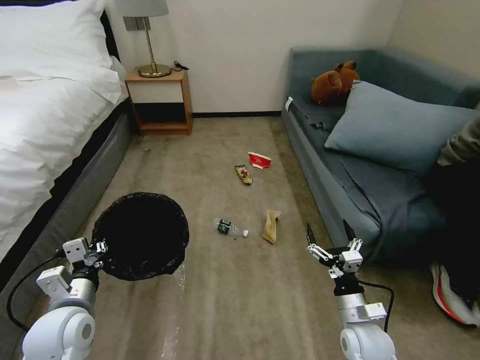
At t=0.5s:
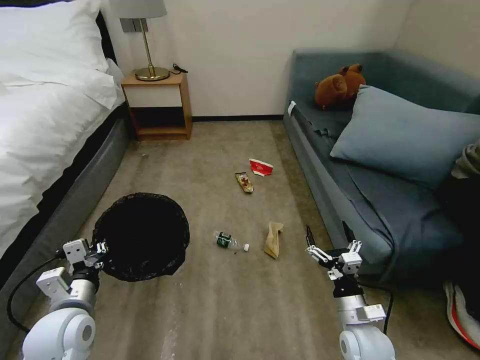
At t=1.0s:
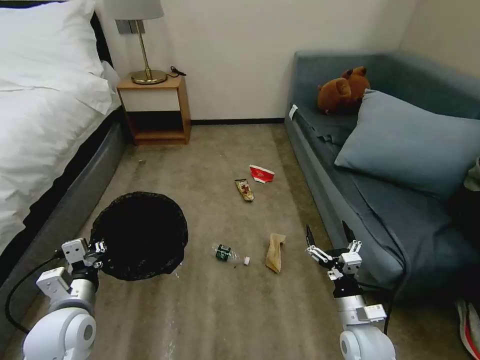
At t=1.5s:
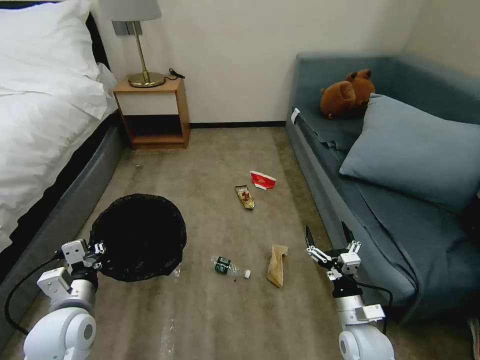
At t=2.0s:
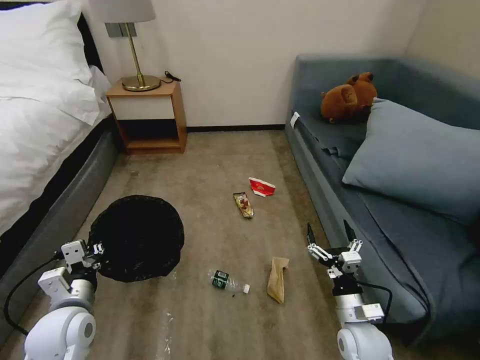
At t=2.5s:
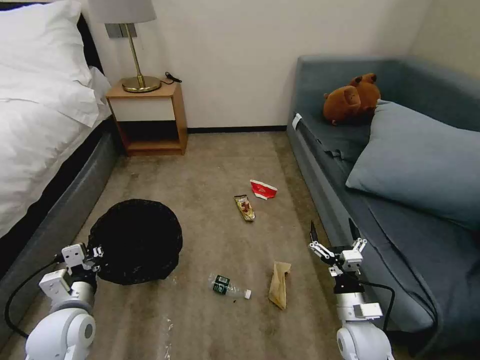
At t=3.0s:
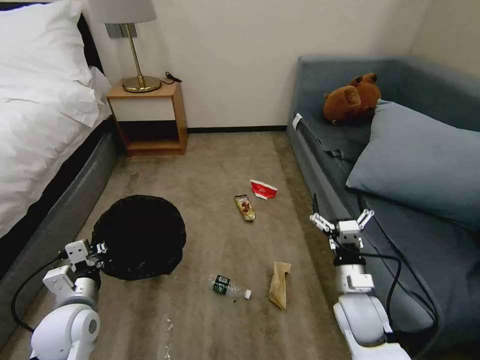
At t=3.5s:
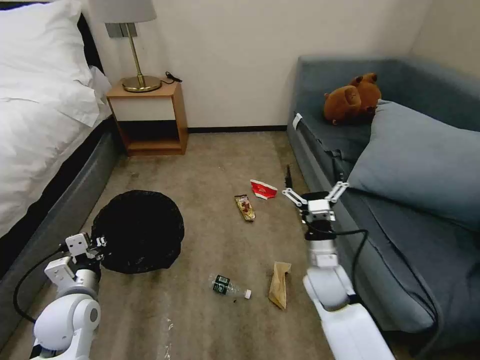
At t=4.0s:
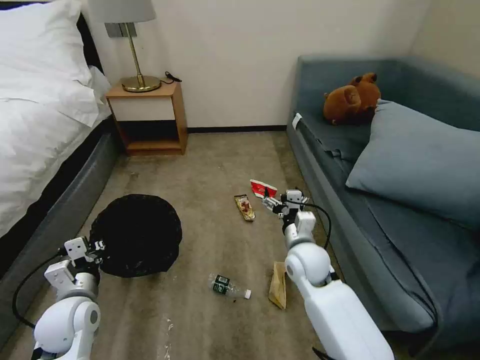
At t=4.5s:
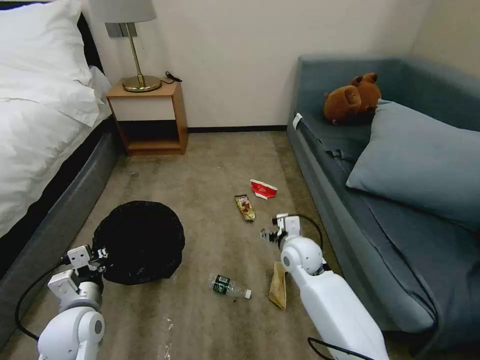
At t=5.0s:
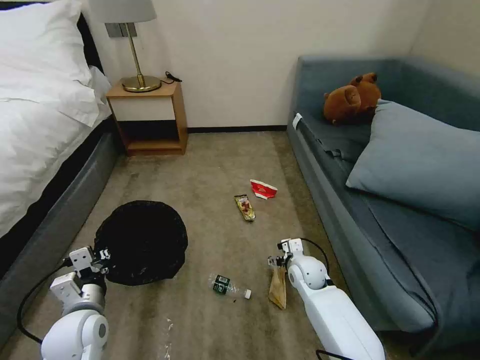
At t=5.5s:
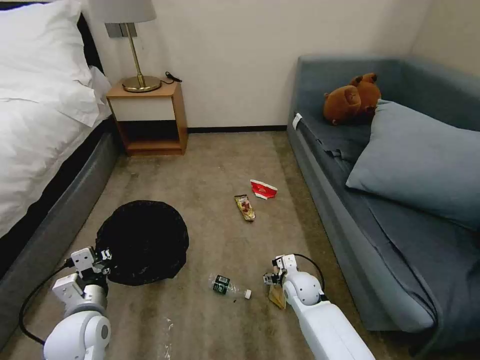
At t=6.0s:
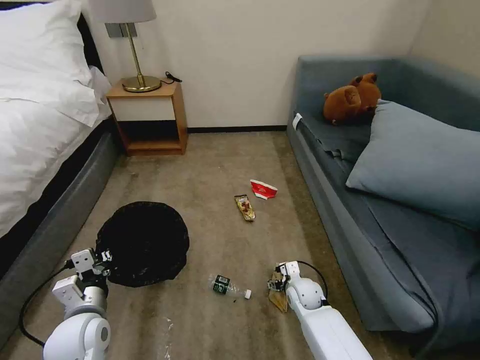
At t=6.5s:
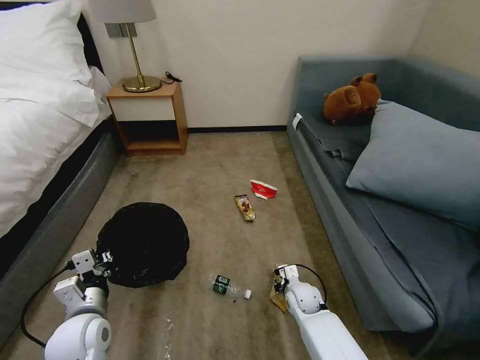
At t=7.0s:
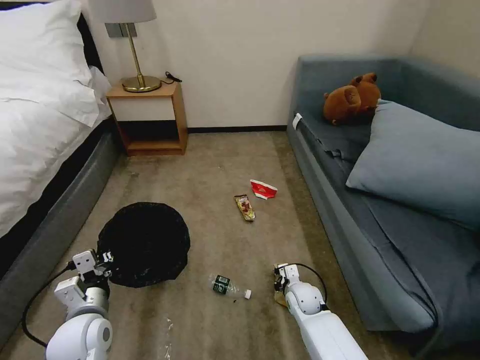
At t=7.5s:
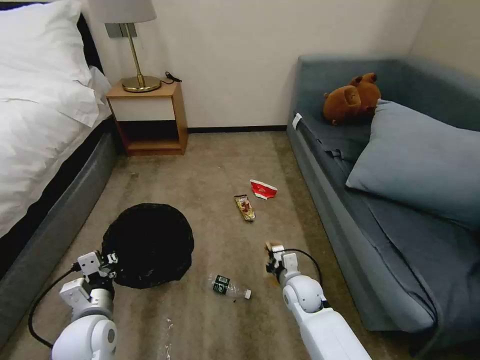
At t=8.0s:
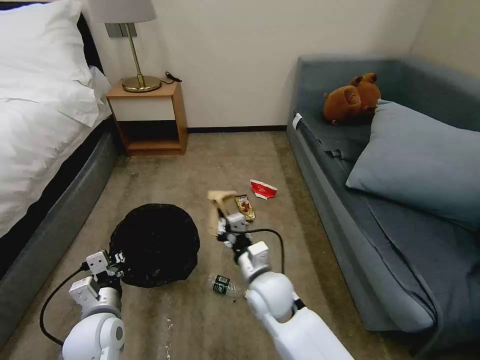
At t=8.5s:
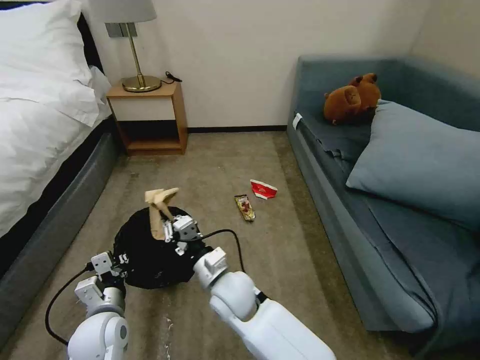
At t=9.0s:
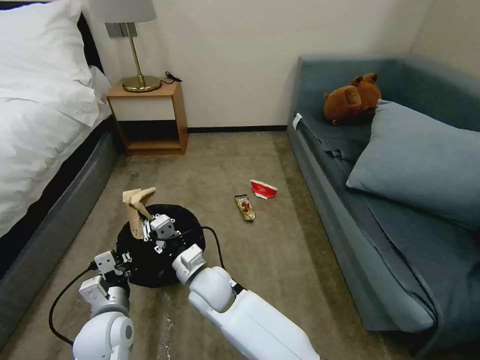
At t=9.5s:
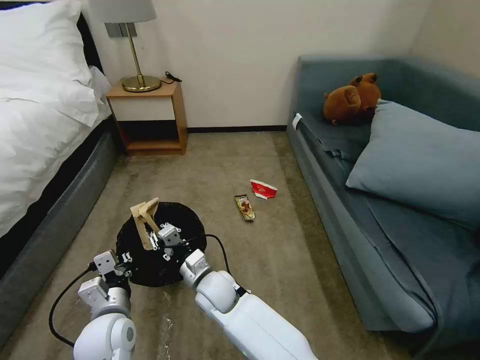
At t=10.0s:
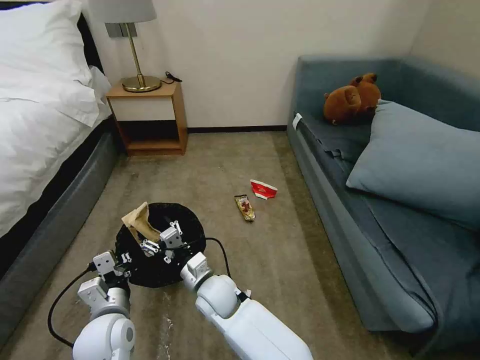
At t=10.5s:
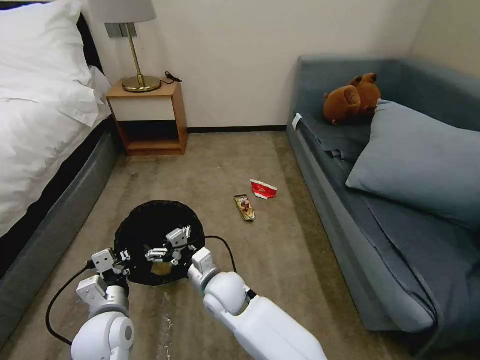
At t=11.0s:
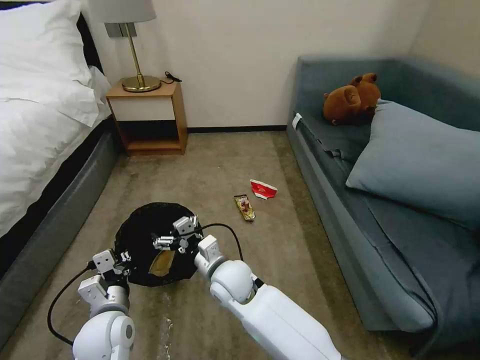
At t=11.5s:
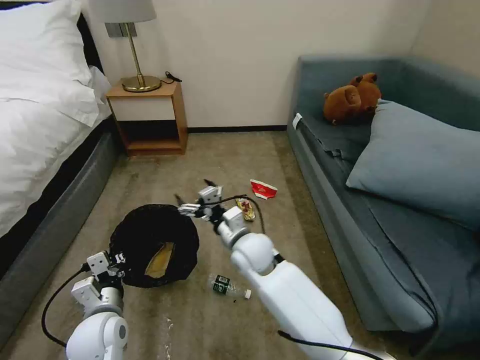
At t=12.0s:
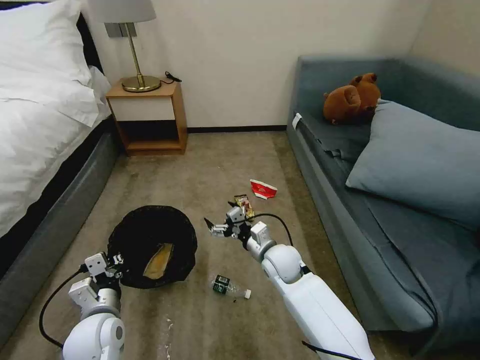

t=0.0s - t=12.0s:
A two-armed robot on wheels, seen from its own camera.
Task of the whole recording: Pick up the trash bin, then pick up the garbage on the floor and place it into the trash bin.
t=2.0s - t=4.0s: The right gripper goes some 20 cm forward, to the left and upward.
t=4.0s - t=6.0s: The right gripper is displaced downward by some 20 cm.
t=6.0s - t=8.0s: The right gripper heads upward and to the left, covering approximately 20 cm, and closes.
t=8.0s - t=10.0s: The right gripper moves to the left, about 15 cm, and opens its fingers.
t=10.0s - t=12.0s: The right gripper heads to the right and forward, covering some 20 cm.

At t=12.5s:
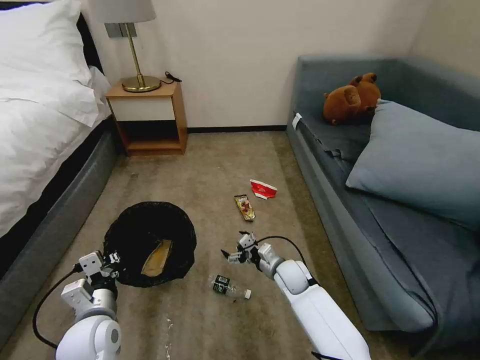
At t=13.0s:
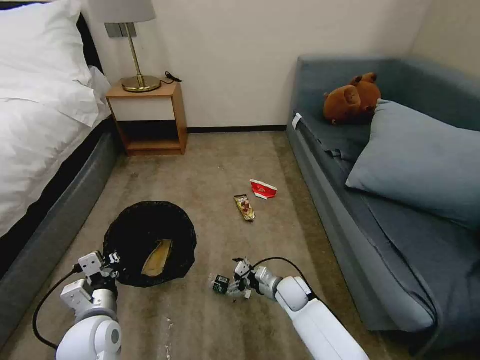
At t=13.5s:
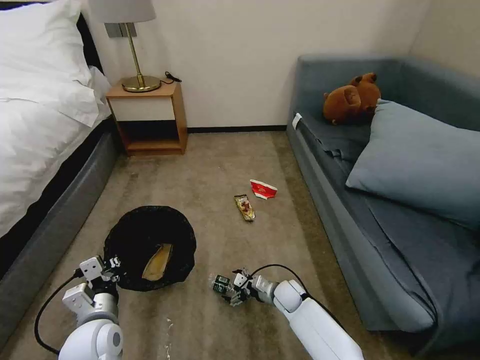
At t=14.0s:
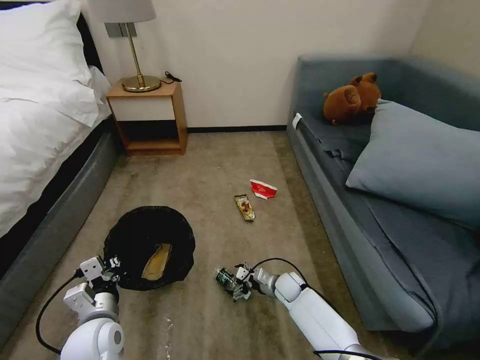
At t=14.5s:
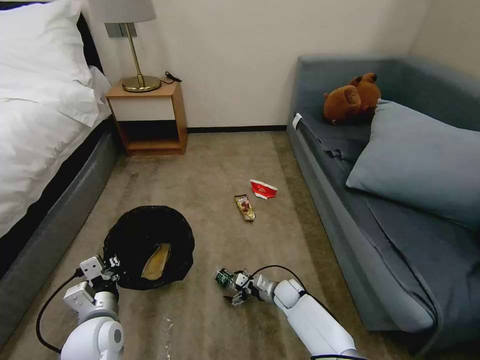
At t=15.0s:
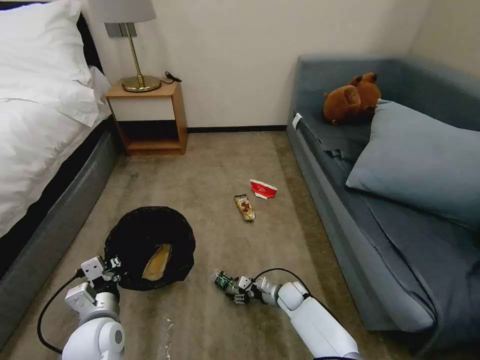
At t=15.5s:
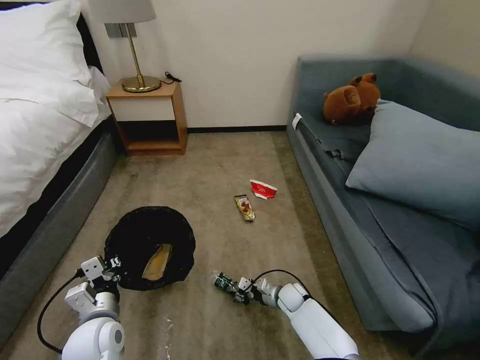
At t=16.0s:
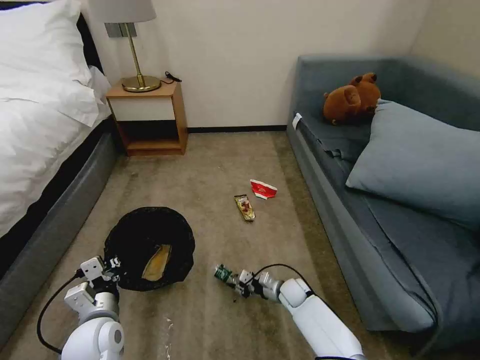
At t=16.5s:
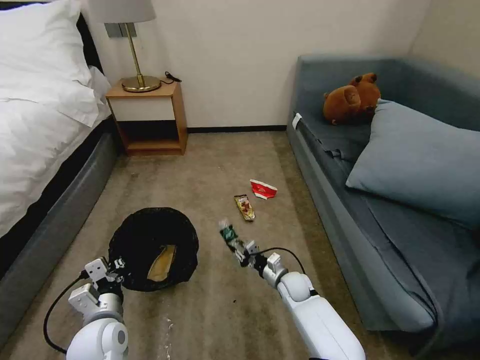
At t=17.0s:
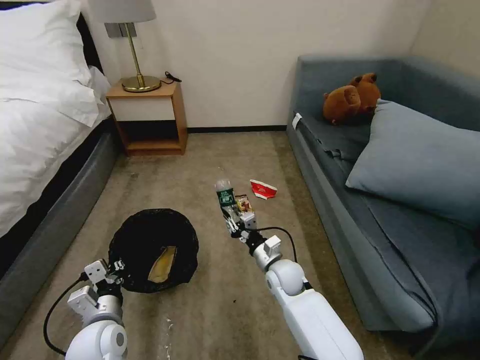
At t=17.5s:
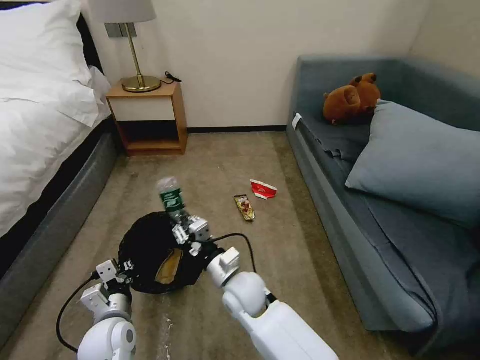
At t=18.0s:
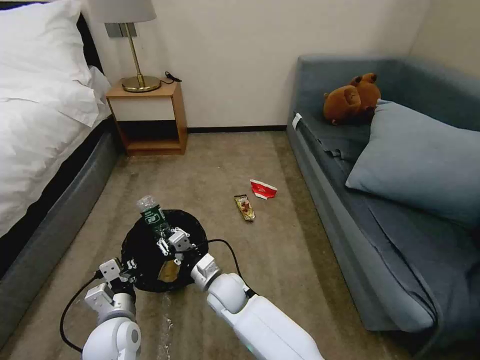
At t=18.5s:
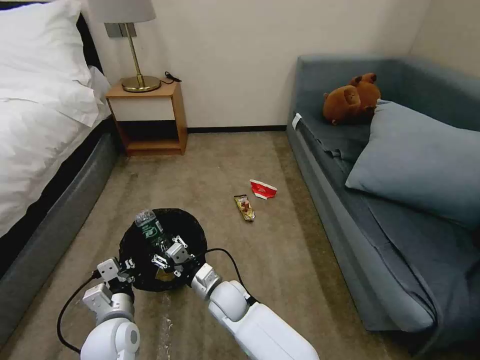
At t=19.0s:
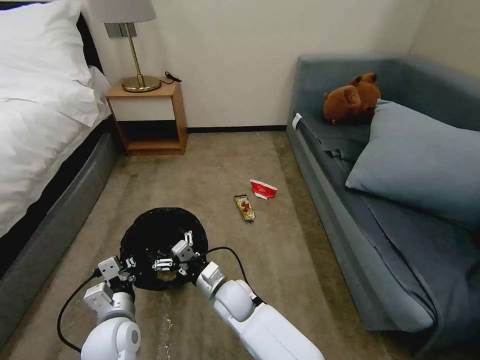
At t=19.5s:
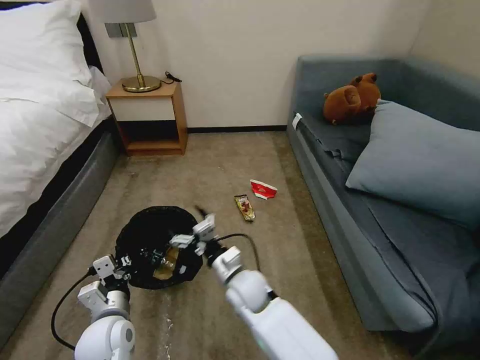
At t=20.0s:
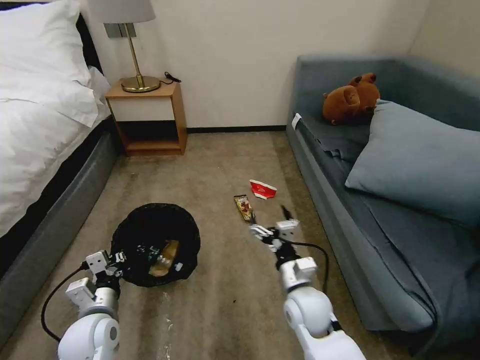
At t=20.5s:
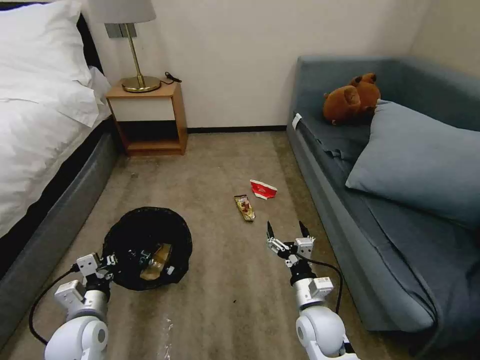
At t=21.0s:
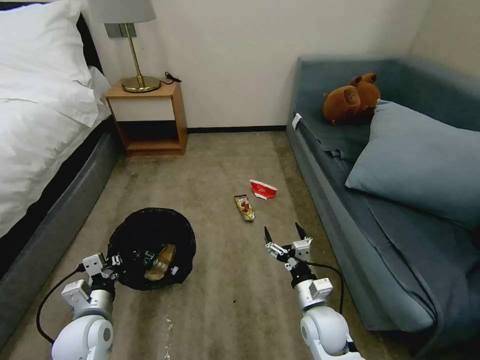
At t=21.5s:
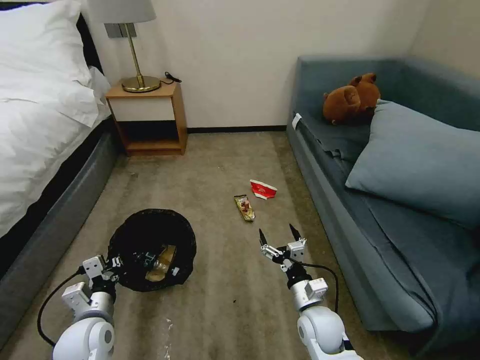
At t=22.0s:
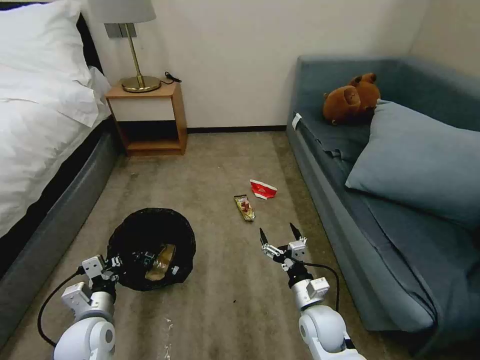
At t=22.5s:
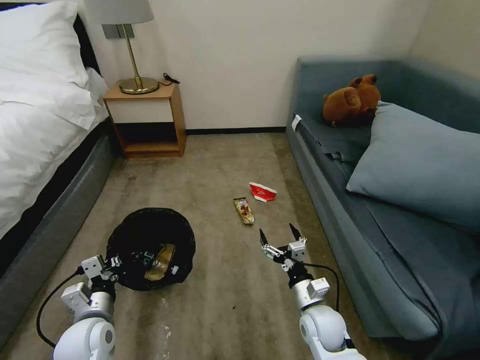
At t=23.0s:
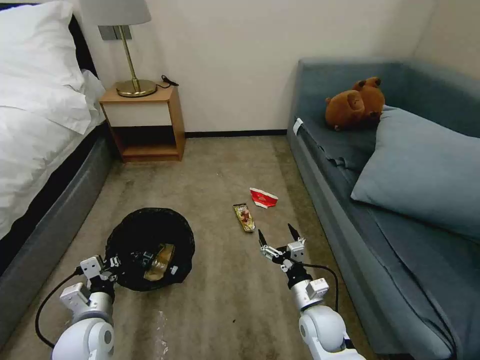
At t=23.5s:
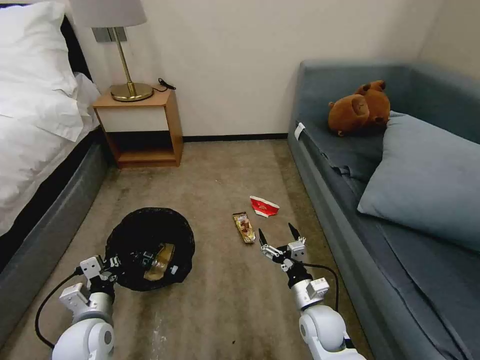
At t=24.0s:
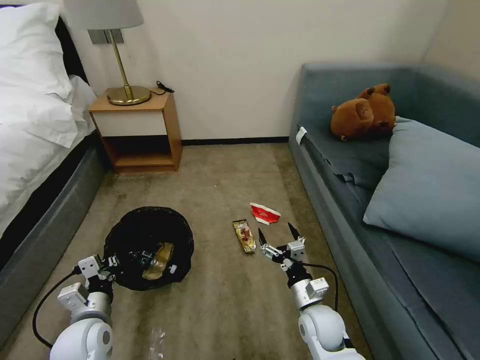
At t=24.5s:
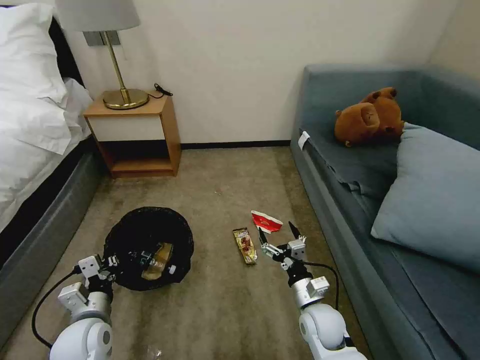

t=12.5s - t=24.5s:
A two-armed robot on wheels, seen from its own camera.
Task of the whole recording: Pick up the trash bin, then pick up the garbage on the floor and place it into the trash bin.
t=12.5s - t=14.5s: The right gripper goes approximately 10 cm downward.
t=14.5s - t=16.5s: The right gripper goes roughly 5 cm upward, and closes up.
t=16.5s - t=18.5s: The right gripper goes some 20 cm to the left and upward.
t=18.5s - t=20.5s: The right gripper moves to the right, roughly 20 cm, and opens. The left gripper moves to the left, roughly 5 cm.
t=20.5s - t=22.5s: The grippers move only a little.

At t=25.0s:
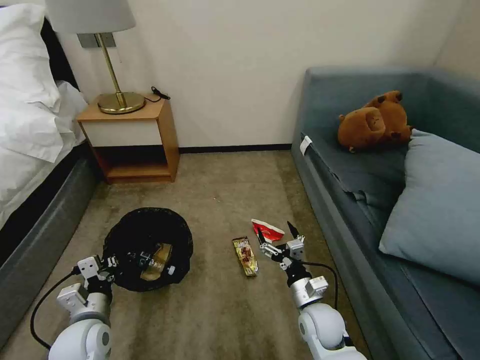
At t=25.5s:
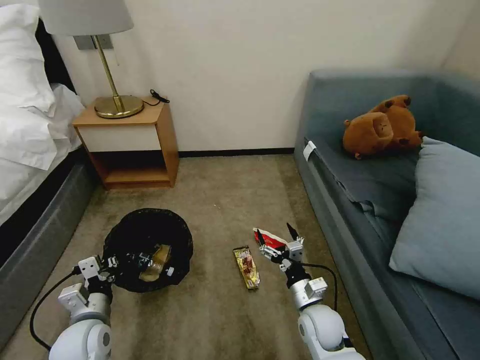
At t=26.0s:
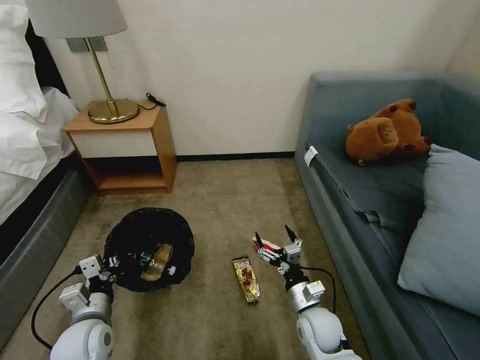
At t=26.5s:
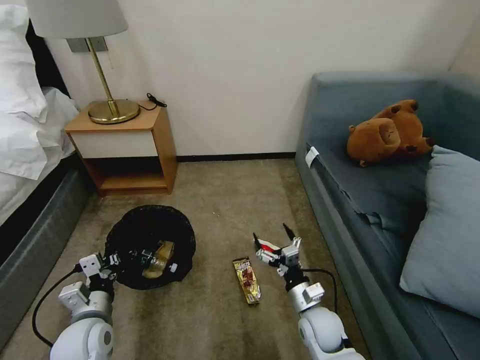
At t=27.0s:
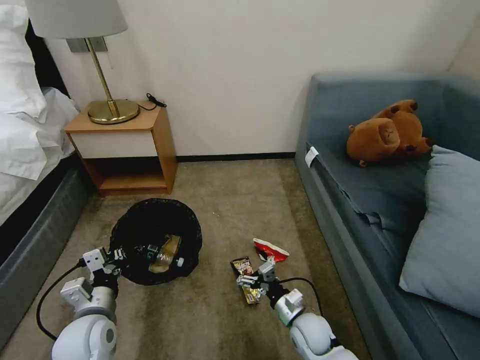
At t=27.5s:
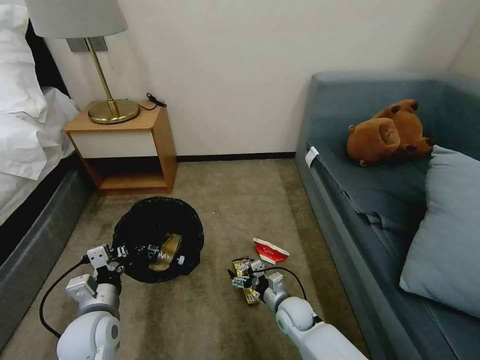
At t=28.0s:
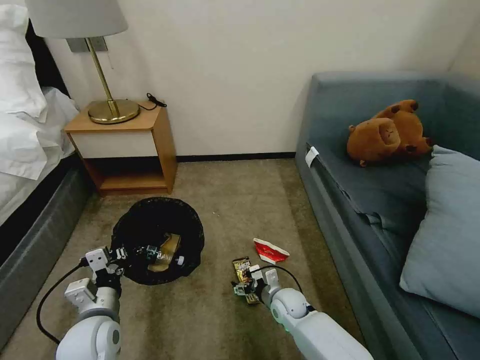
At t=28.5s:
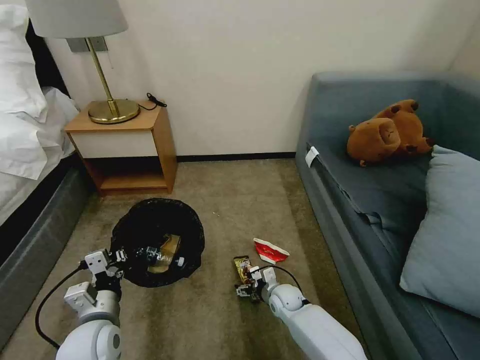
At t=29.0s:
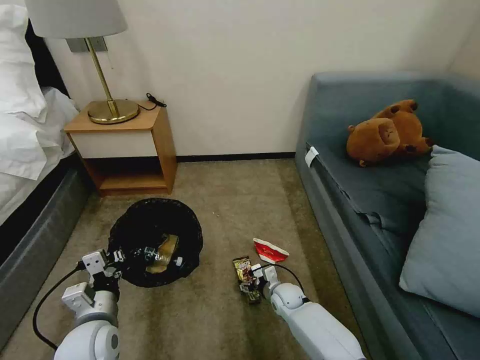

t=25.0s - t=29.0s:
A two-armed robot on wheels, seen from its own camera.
Task of the whole recording: Pick up the trash bin, then pick up the garbage on the floor and place it into the trash bin.
t=25.0s - t=27.0s: The right gripper heads downward, covering roughly 5 cm.
t=27.0s - t=29.0s: The right gripper heads forward and downward, covering about 15 cm.
